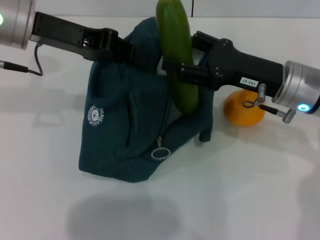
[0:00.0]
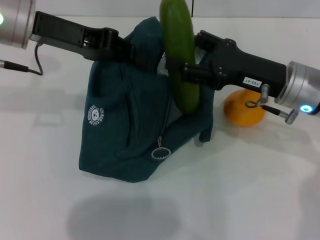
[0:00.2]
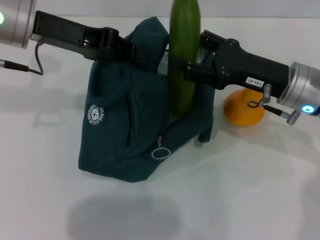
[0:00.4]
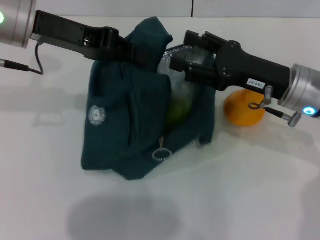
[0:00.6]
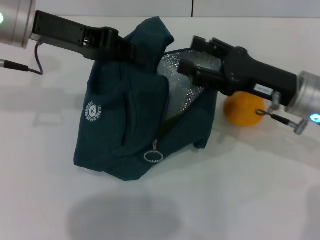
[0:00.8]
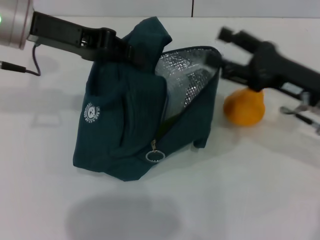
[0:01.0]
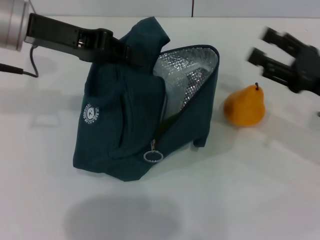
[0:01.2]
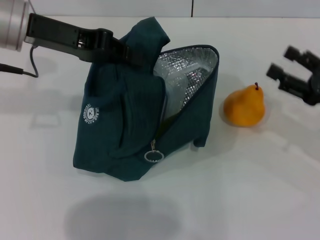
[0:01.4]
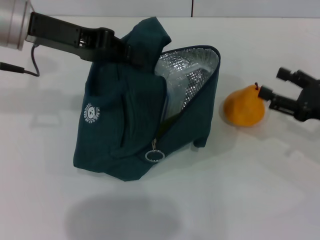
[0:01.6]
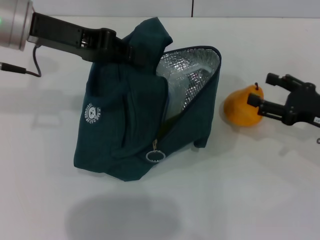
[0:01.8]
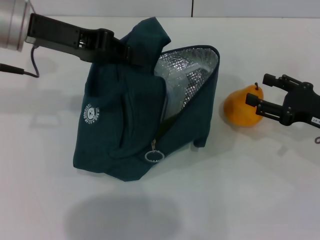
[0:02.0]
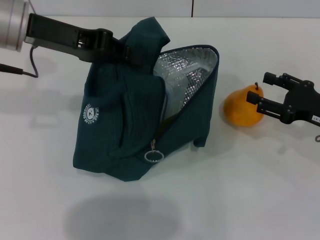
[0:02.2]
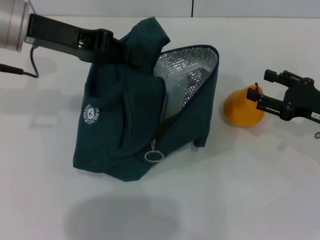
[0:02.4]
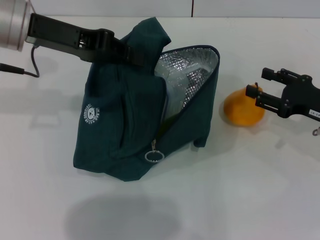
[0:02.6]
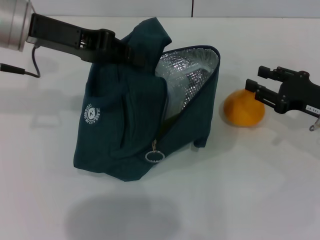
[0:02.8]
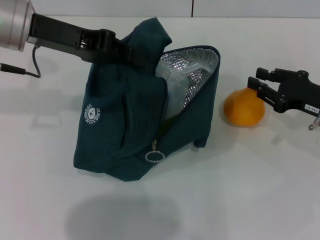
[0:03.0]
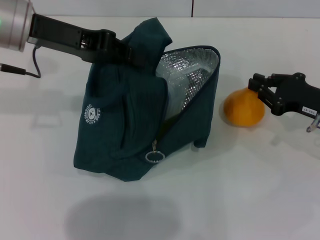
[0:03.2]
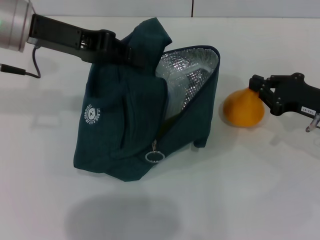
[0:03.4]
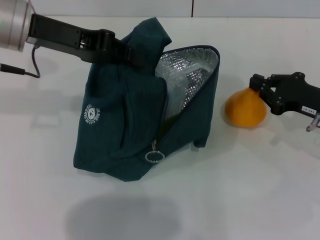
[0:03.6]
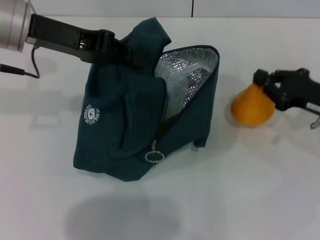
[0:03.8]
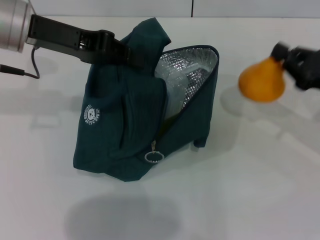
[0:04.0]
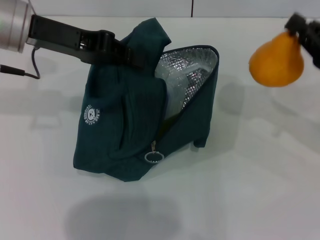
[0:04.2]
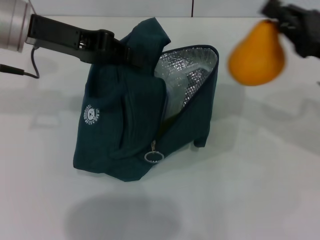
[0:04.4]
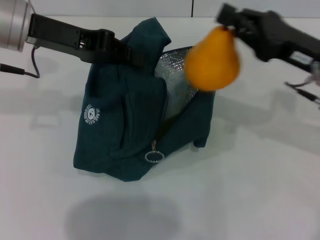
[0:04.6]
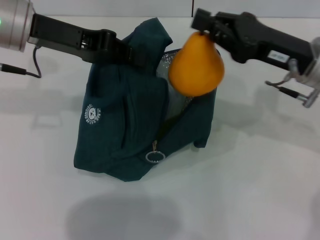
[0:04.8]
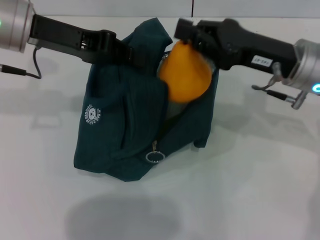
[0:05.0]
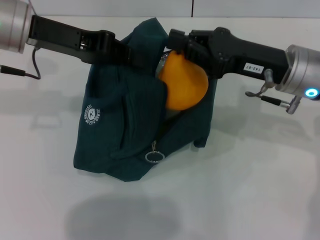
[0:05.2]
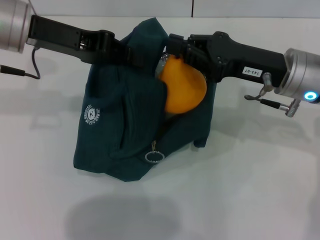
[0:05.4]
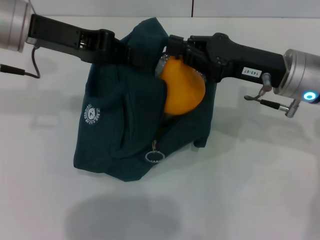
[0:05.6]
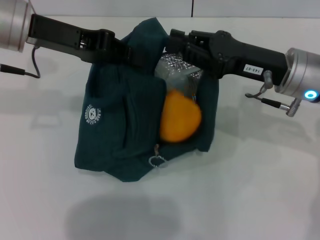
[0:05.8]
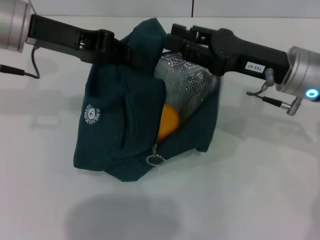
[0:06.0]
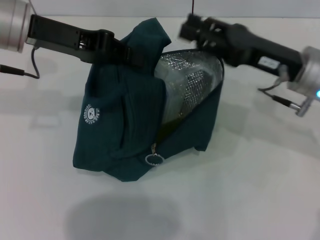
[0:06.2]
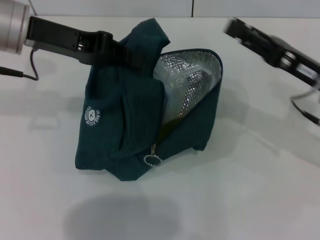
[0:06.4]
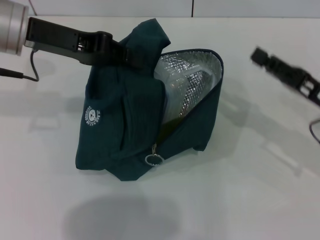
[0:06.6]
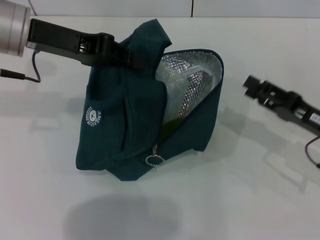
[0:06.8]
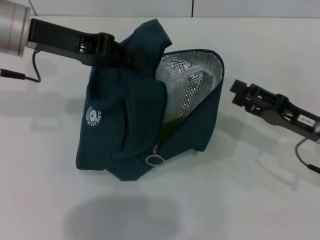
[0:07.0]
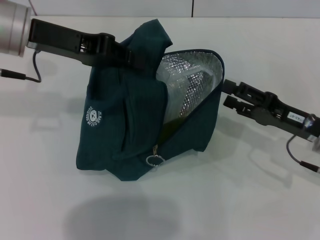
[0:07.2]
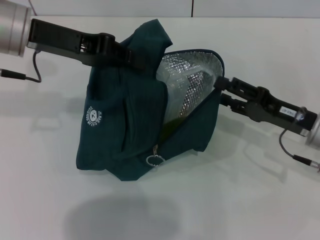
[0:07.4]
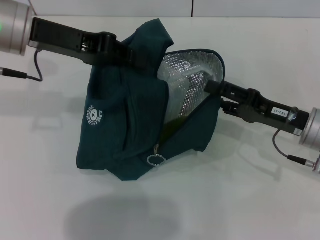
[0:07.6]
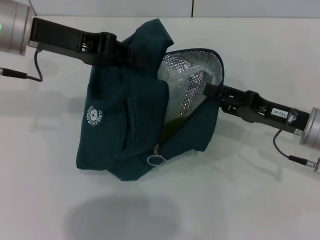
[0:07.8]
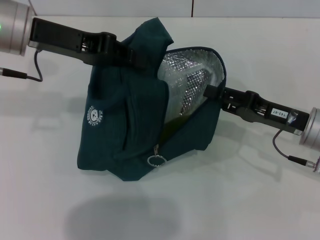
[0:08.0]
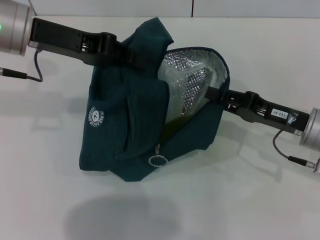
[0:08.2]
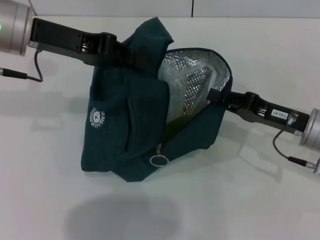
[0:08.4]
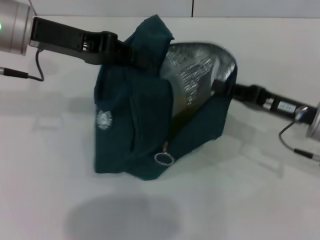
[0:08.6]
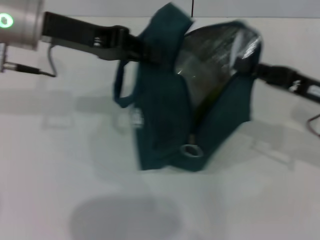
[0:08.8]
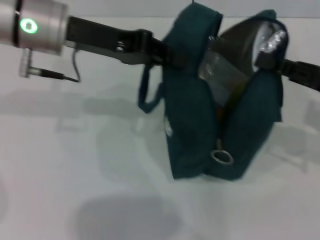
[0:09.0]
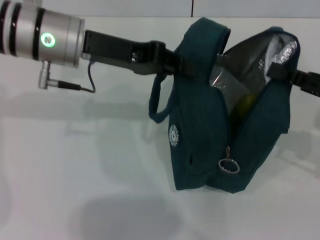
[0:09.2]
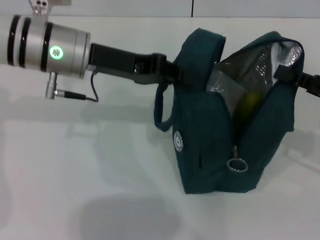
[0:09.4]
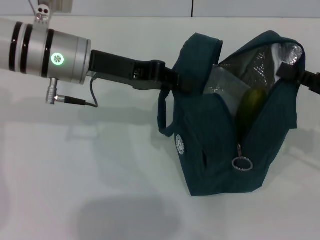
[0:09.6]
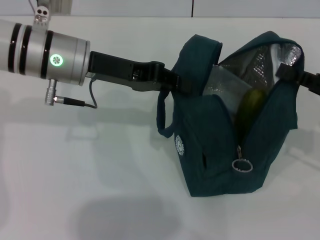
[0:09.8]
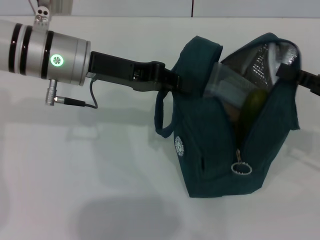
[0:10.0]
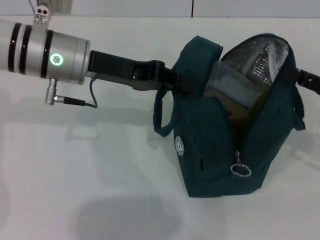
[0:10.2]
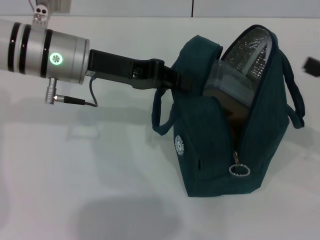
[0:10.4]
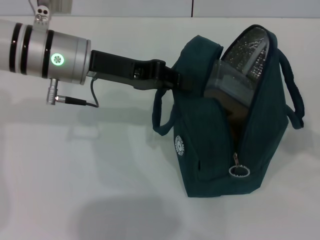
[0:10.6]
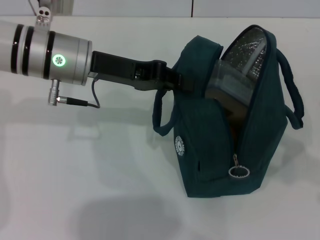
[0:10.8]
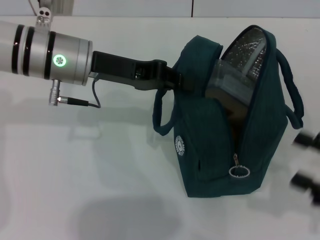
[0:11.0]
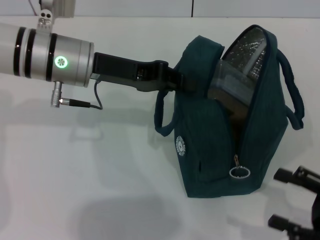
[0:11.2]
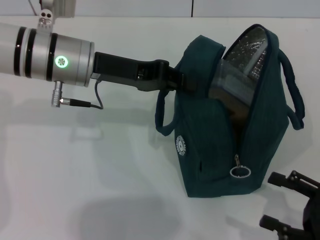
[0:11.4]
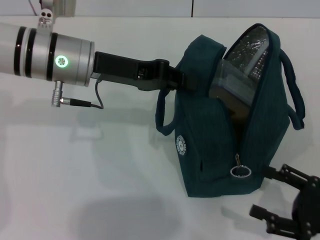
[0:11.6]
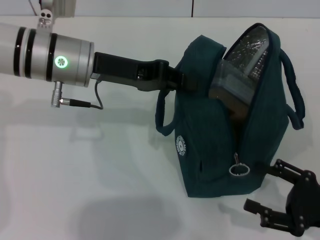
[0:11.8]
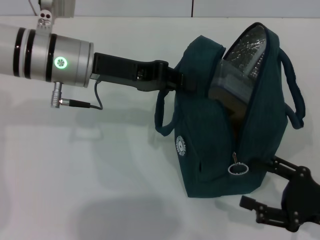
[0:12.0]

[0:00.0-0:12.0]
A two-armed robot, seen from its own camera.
Step, 0:01.6 to 0:03.6: Grab the pear with your right hand.
Step, 0:06.4 to 0:10.8: Hold the lunch bag with your right hand.
0:00.0 to 0:01.6: The right gripper goes some 15 cm to the right.
0:01.6 to 0:03.0: The right gripper closes.
0:03.0 to 0:04.4: The right gripper heads upward, covering about 5 cm, and closes.
0:04.4 to 0:06.0: The right gripper goes some 10 cm to the left.
0:06.0 to 0:07.6: The right gripper moves downward and to the right, approximately 10 cm, and opens up.
0:07.6 to 0:09.0: The right gripper is displaced upward and to the right by some 10 cm, and closes its fingers.
0:09.0 to 0:10.4: The right gripper heads to the right, covering roughly 5 cm, and opens.
0:10.4 to 0:12.0: The right gripper shifts roughly 15 cm backward, downward and to the left, and opens up.

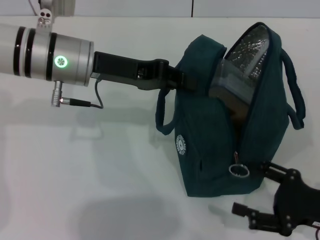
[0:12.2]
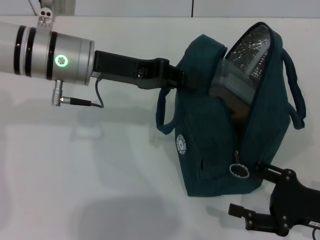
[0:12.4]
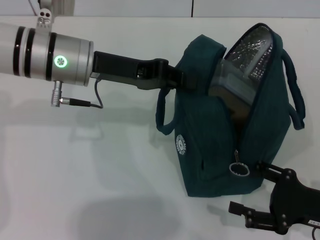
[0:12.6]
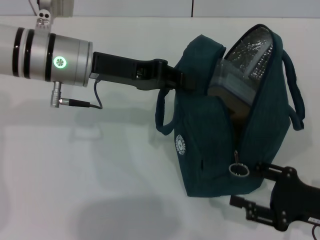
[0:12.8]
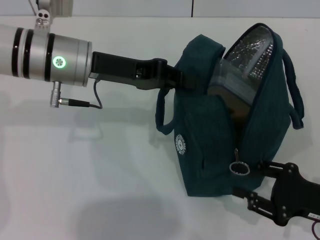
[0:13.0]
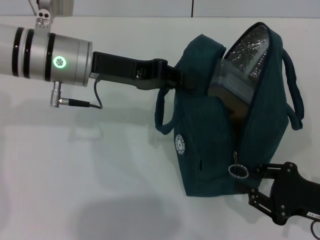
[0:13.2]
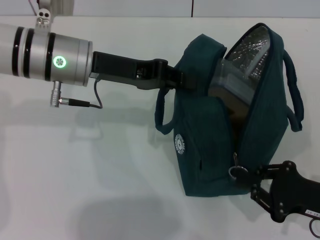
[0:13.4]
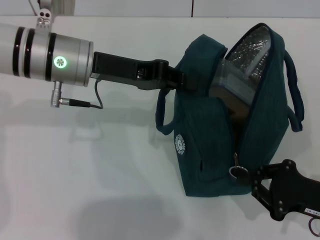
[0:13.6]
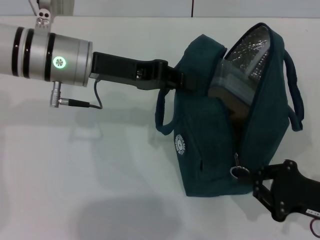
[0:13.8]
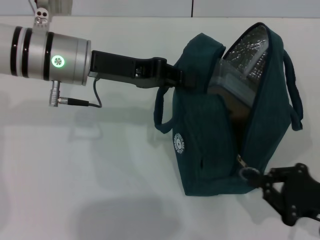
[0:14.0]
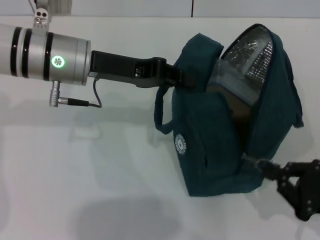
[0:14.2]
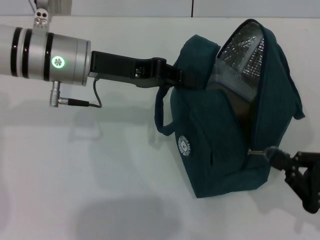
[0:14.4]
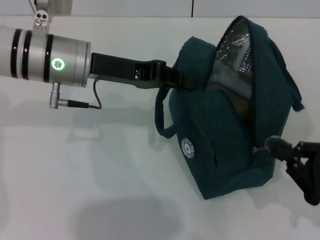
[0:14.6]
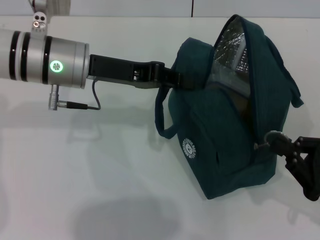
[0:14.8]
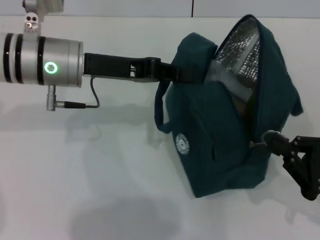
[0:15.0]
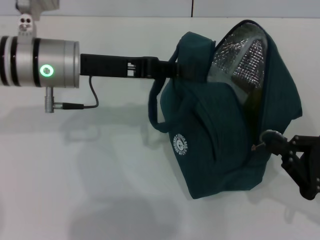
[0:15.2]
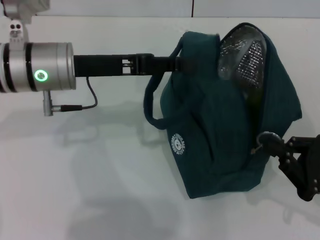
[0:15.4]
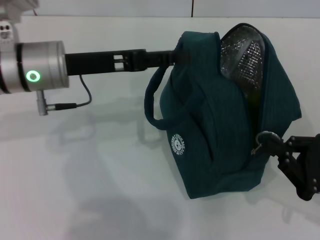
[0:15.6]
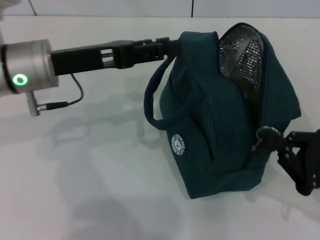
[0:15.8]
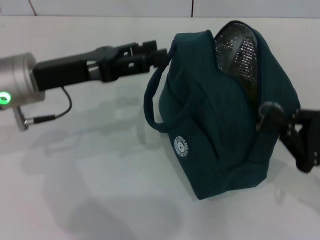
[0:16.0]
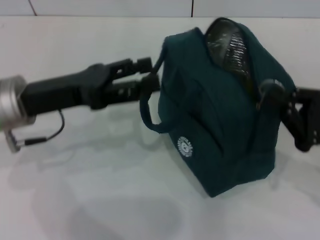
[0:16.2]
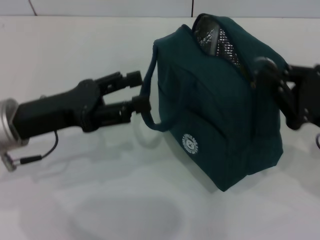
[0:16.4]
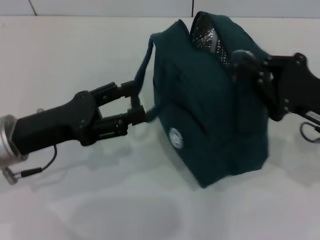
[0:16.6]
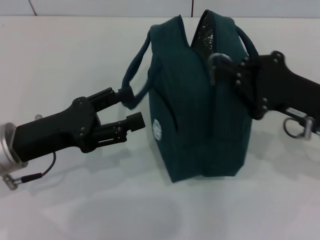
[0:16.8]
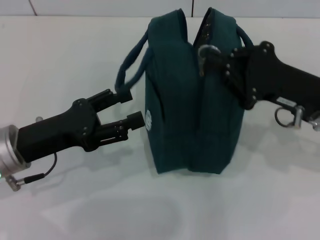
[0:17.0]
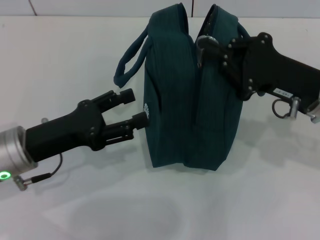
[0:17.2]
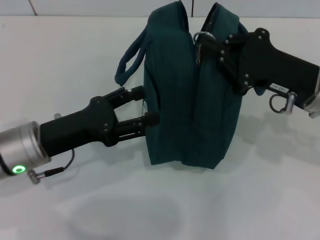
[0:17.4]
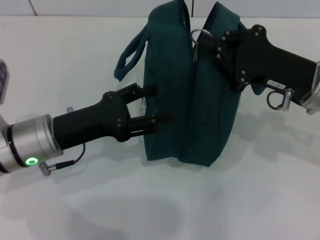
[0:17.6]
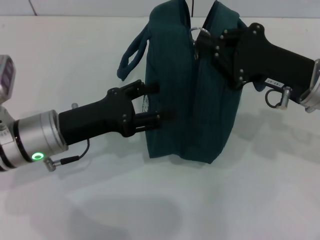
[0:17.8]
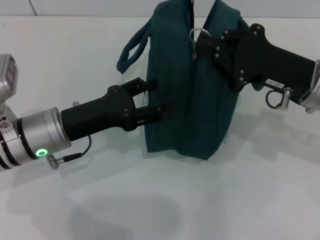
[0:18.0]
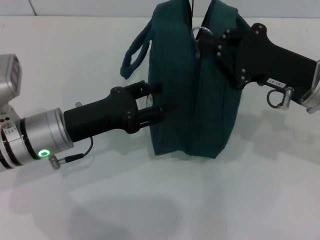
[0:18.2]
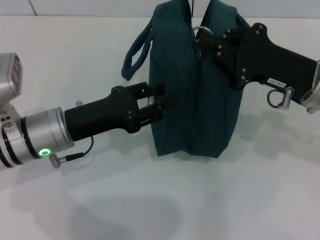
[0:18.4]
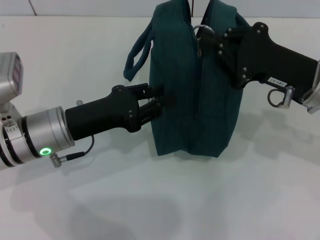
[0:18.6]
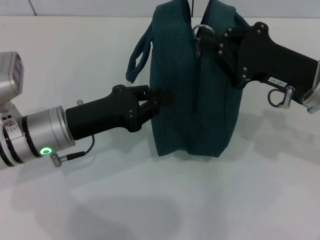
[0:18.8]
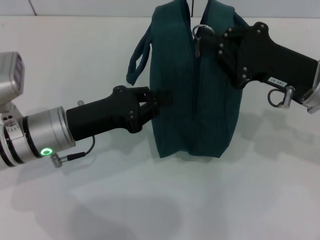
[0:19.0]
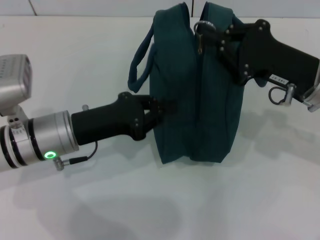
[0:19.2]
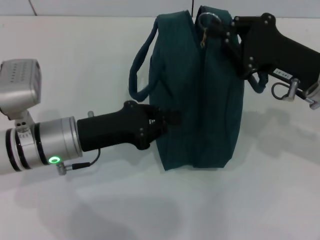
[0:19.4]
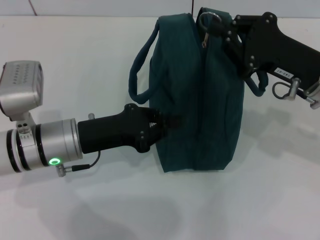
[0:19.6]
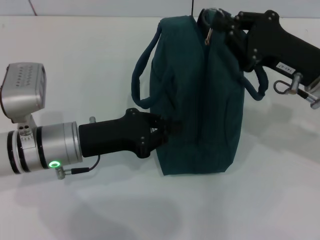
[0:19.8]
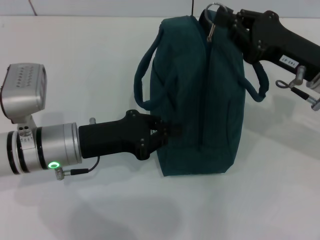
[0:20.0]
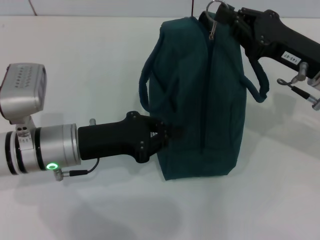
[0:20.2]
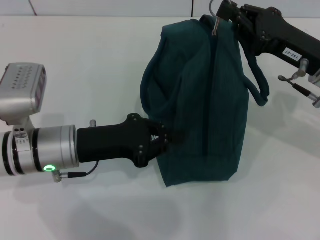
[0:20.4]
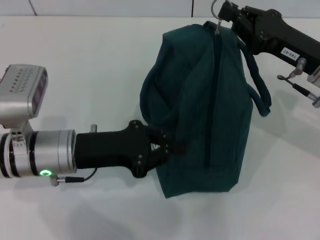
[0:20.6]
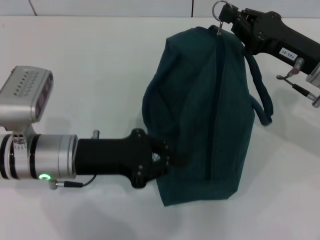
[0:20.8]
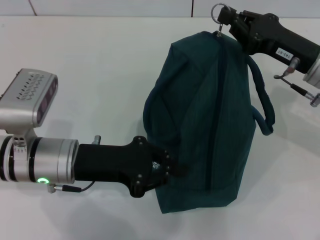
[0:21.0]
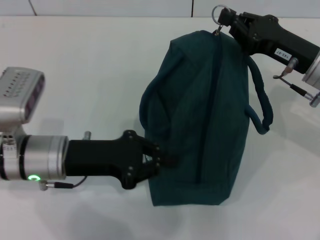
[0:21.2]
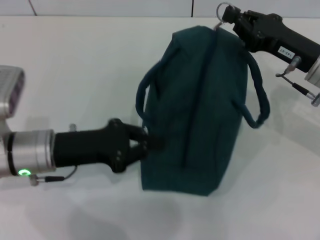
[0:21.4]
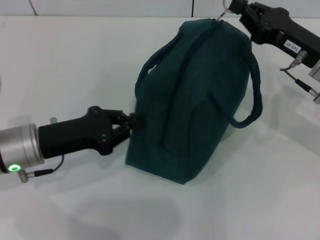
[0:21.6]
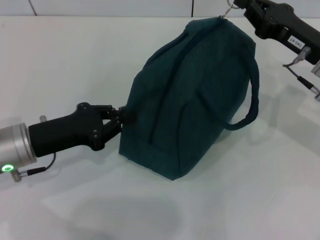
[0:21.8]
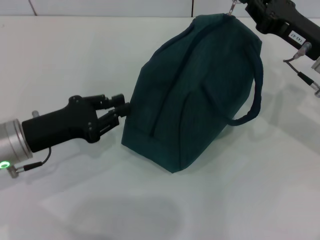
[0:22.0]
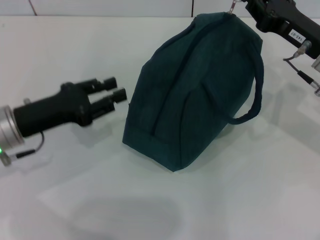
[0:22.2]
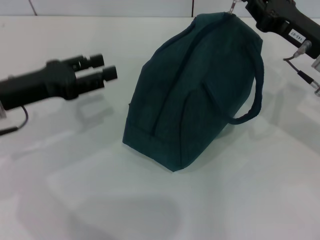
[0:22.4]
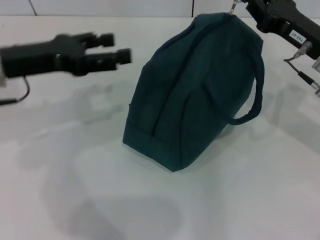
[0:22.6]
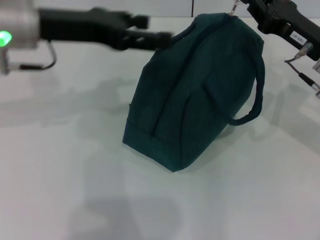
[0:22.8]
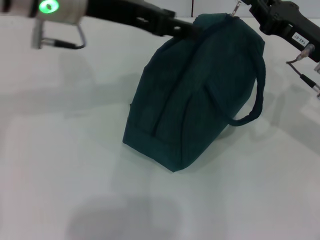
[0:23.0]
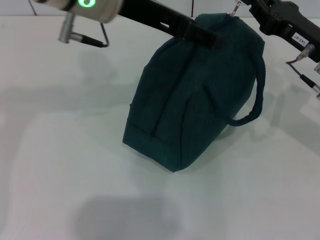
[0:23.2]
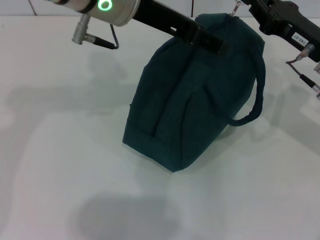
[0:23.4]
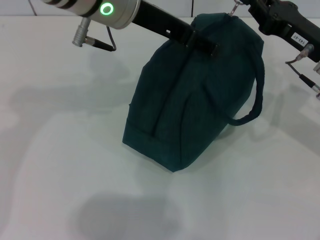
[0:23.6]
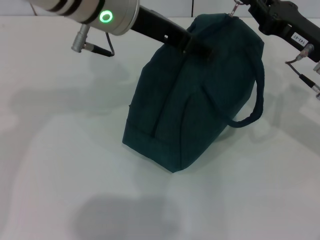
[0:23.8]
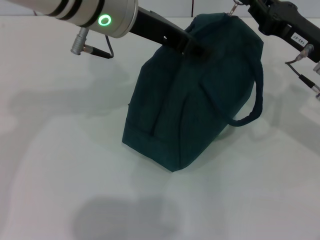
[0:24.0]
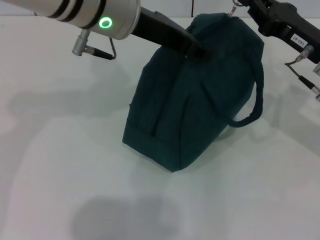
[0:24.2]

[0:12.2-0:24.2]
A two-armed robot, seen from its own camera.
Step, 0:12.2 to 0:15.8: Hold the lunch bag with your left hand.
0:12.2 to 0:13.8: The right gripper closes its fingers.
0:15.2 to 0:16.6: The right gripper moves forward and upward, roughly 10 cm. Meanwhile the left gripper heads backward, to the left and downward, covering roughly 15 cm, and opens up.
0:16.6 to 0:18.2: The left gripper ends up some 5 cm from where it was; the right gripper moves some 5 cm.
0:18.2 to 0:19.8: The left gripper closes its fingers.
0:21.2 to 0:22.6: The left gripper is displaced upward, to the left and forward by roughly 15 cm, and opens.
0:22.6 to 0:24.2: The left gripper is displaced to the right and upward by roughly 15 cm.
